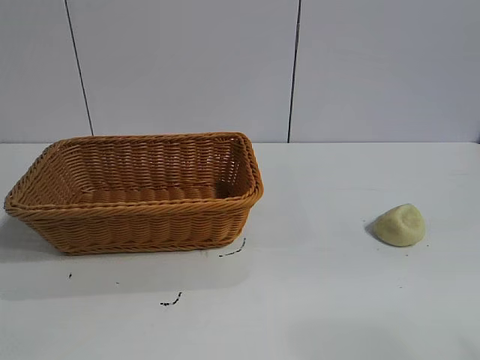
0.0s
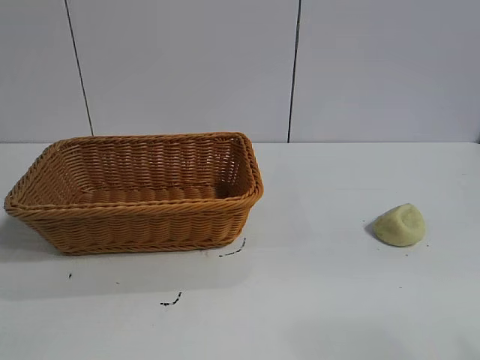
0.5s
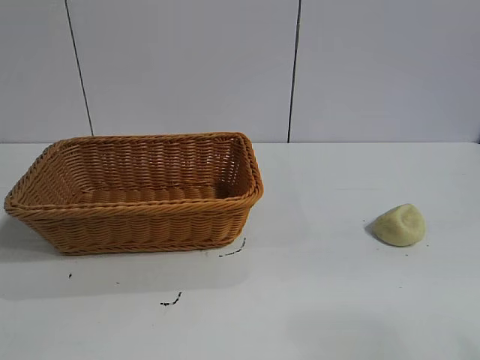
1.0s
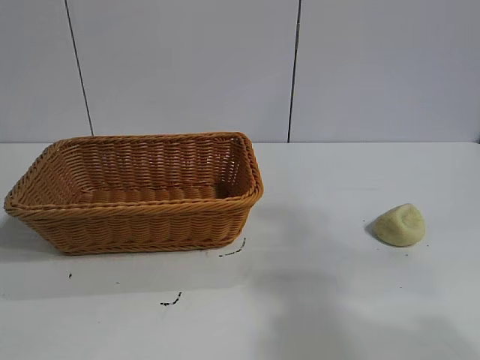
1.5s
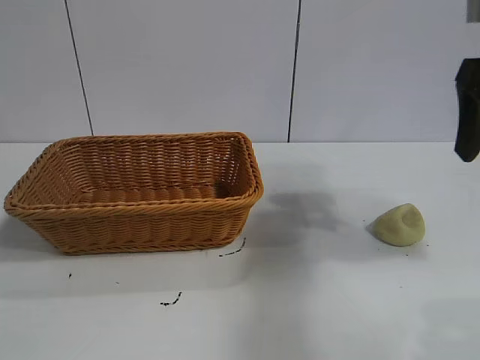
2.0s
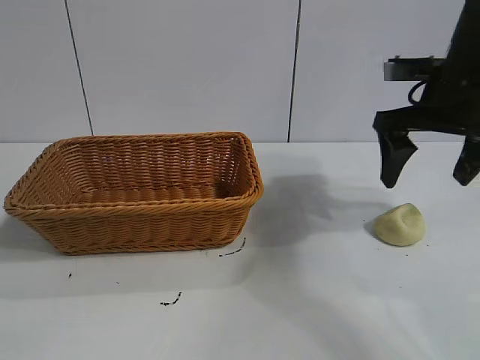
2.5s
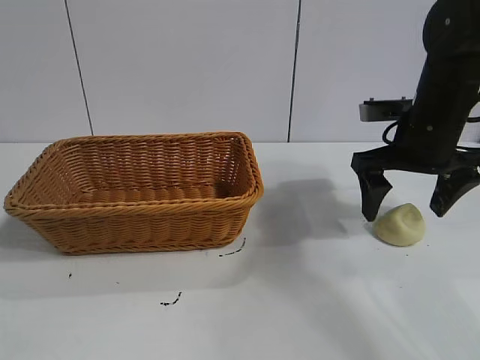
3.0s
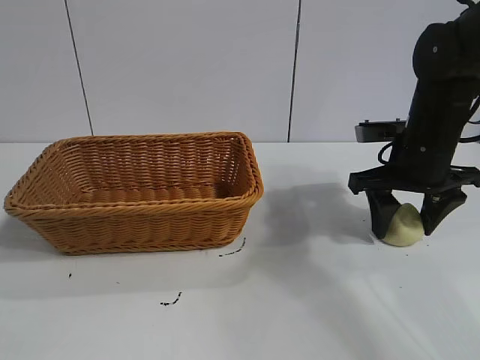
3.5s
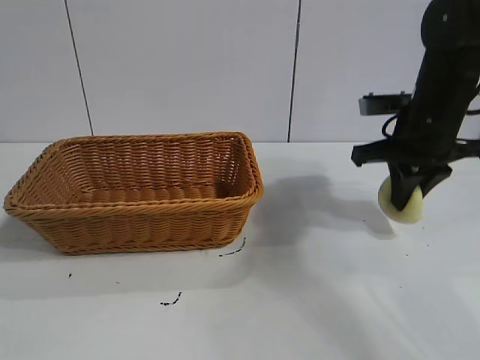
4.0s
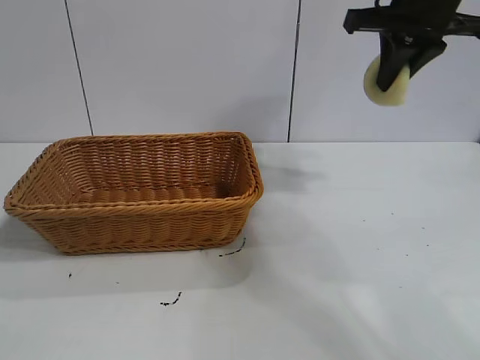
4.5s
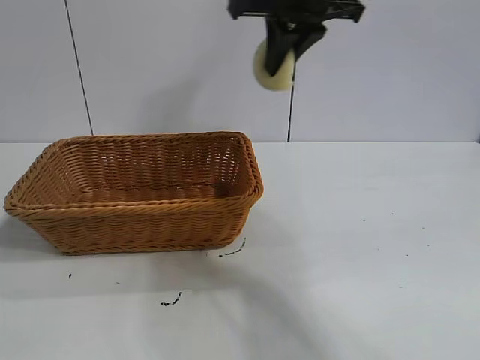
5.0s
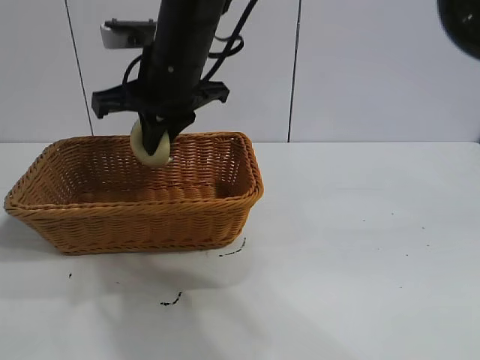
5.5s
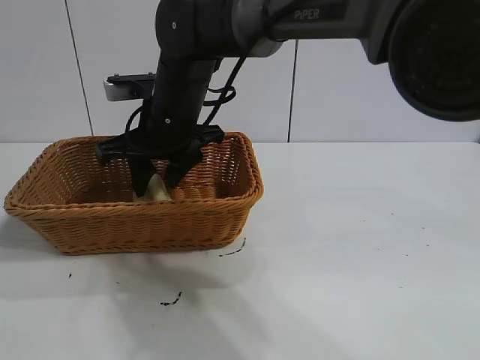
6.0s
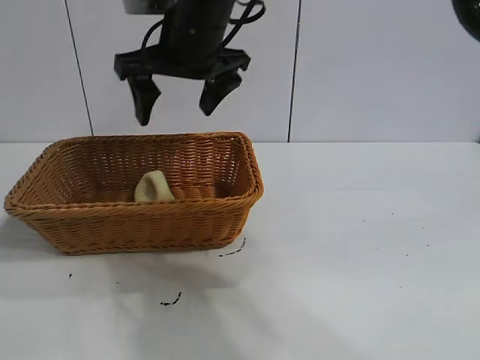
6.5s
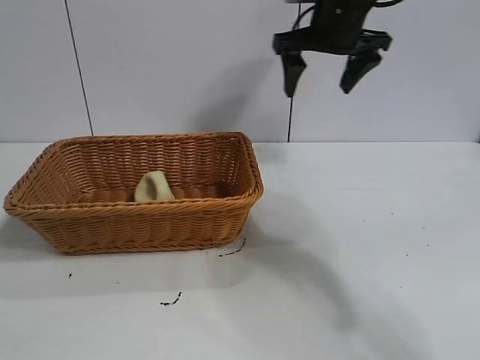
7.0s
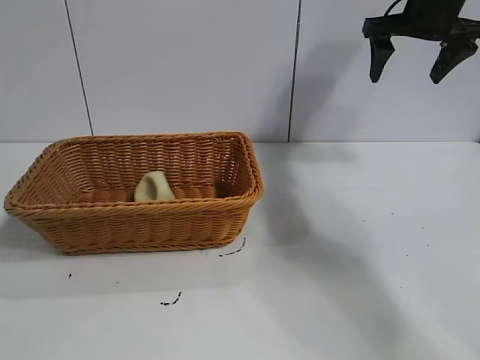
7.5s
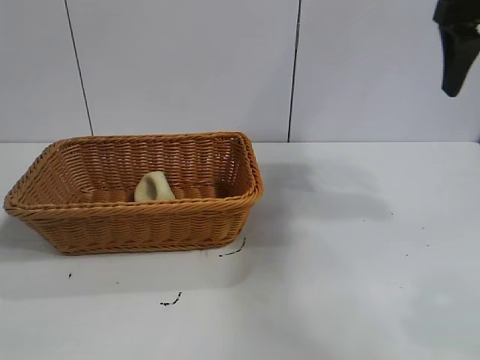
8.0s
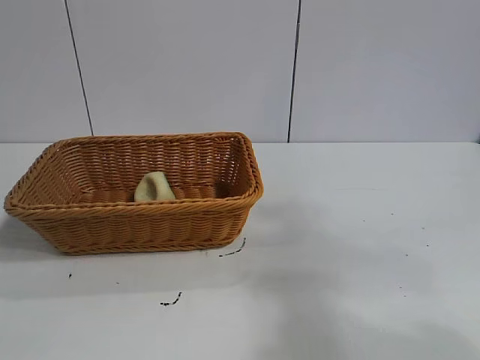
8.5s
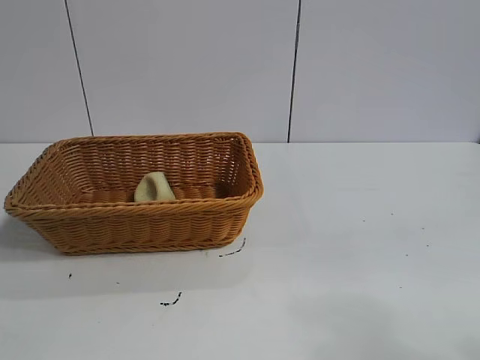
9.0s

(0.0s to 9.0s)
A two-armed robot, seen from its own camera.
Task of the whole recording: pick up the egg yolk pastry and put it into the basket.
Step, 1.0s - 3.5s: Grasp egg yolk pastry with right gripper.
Step, 4.0s - 6.0s: Place the egg yolk pastry in the basket with right gripper.

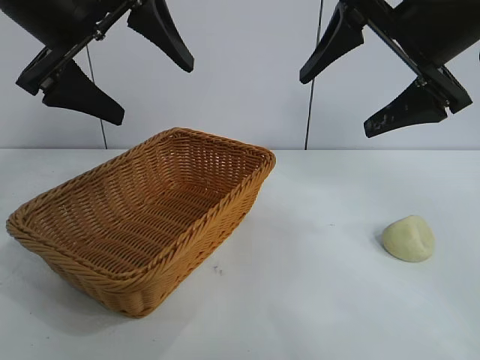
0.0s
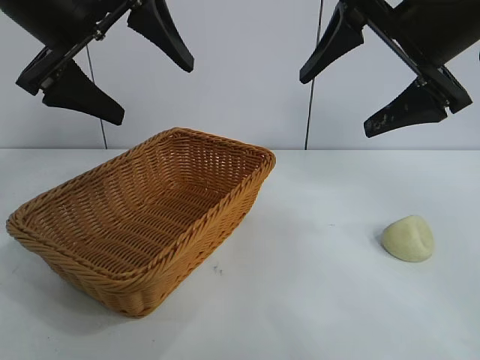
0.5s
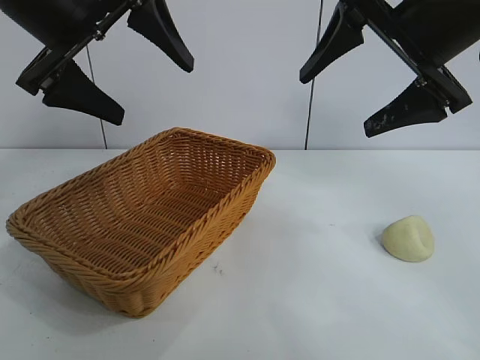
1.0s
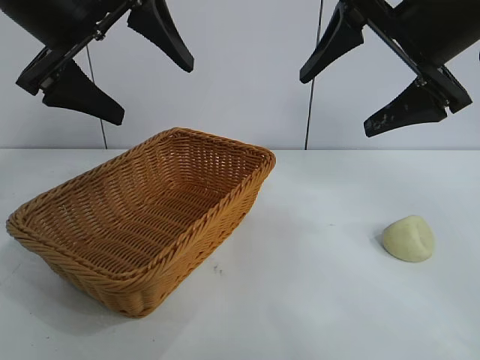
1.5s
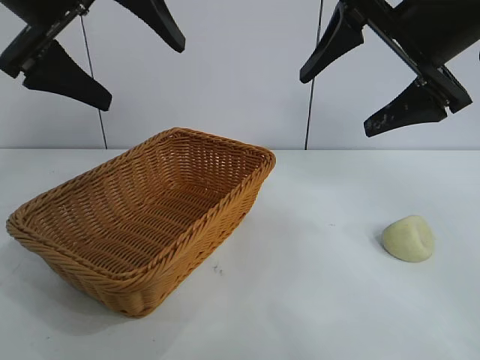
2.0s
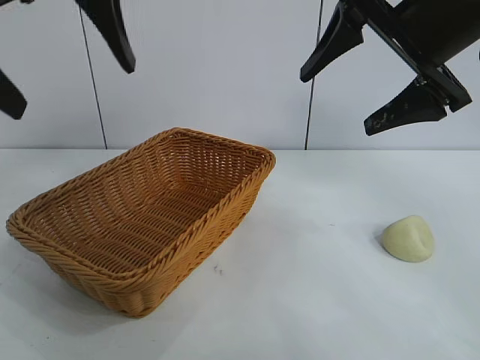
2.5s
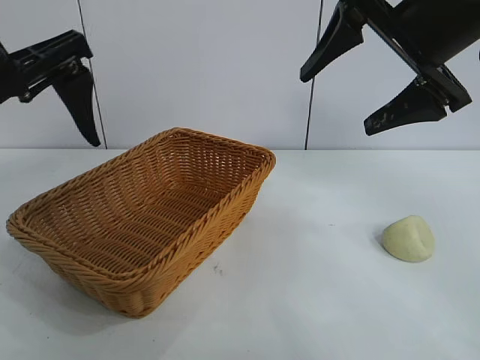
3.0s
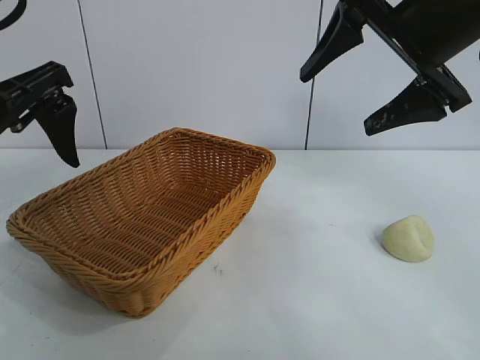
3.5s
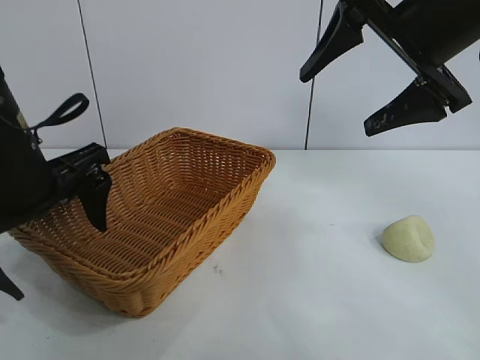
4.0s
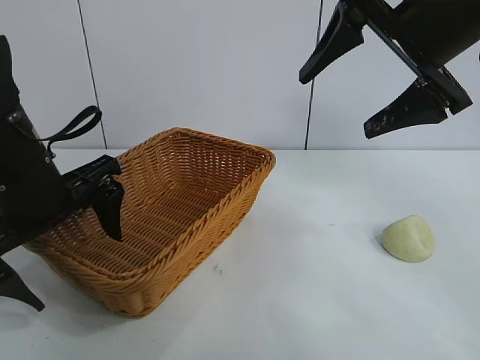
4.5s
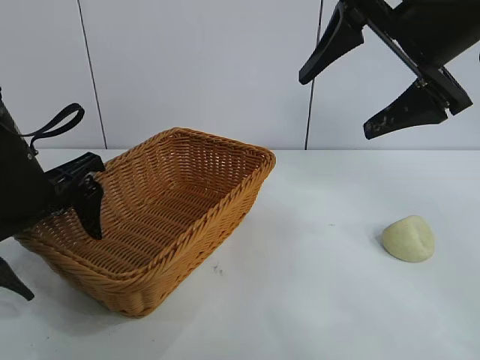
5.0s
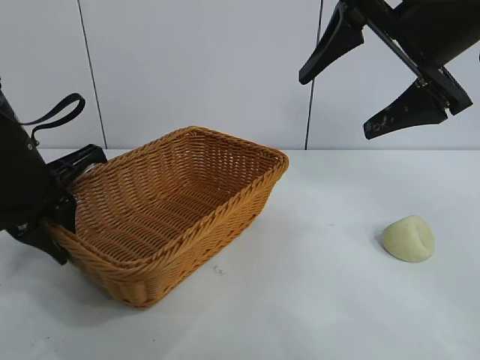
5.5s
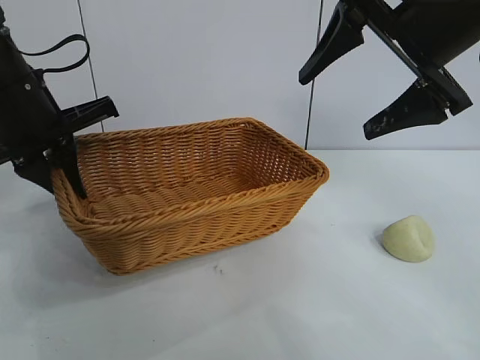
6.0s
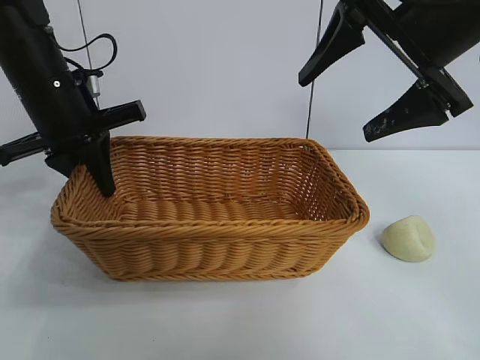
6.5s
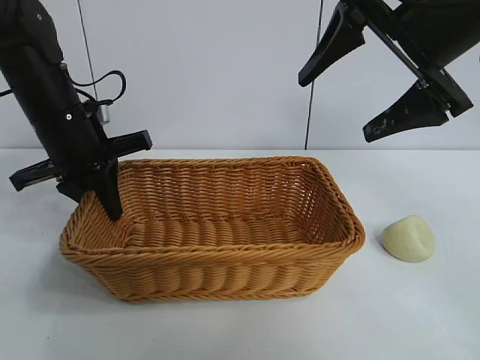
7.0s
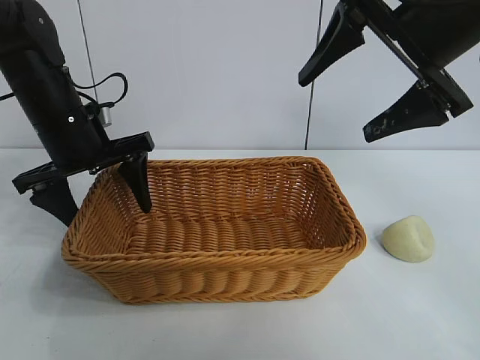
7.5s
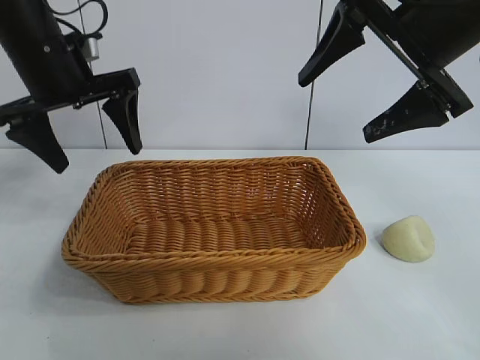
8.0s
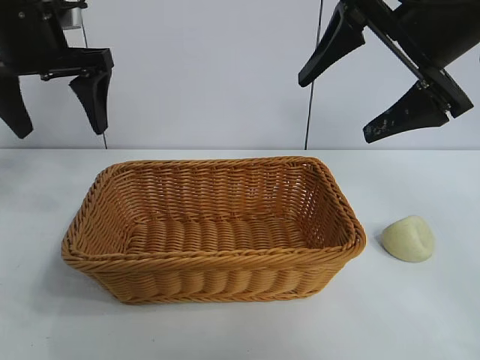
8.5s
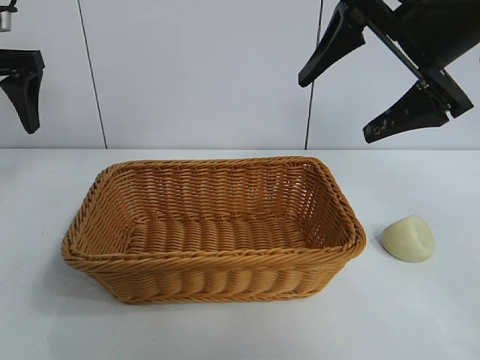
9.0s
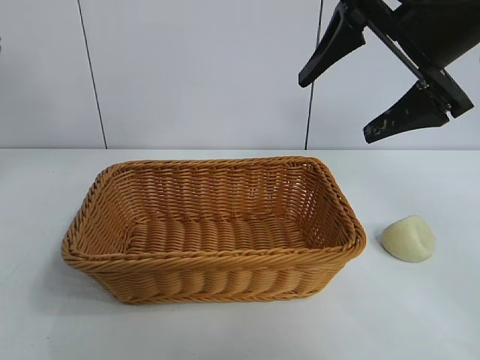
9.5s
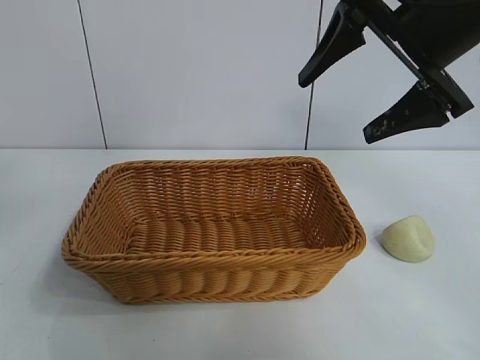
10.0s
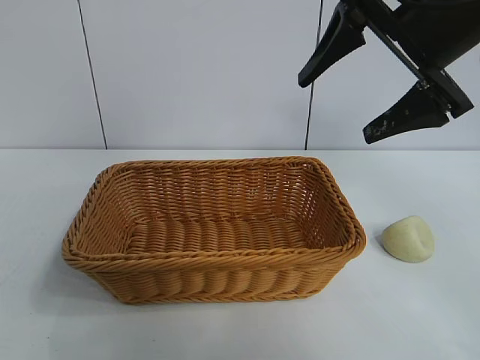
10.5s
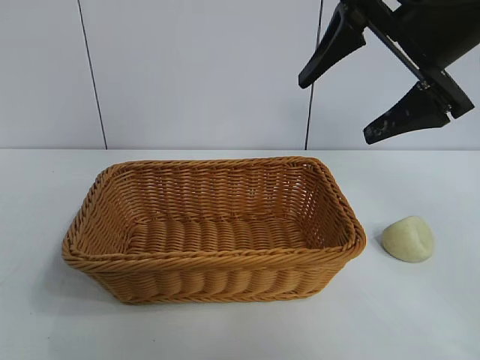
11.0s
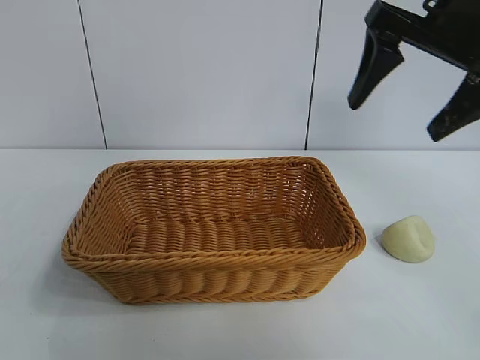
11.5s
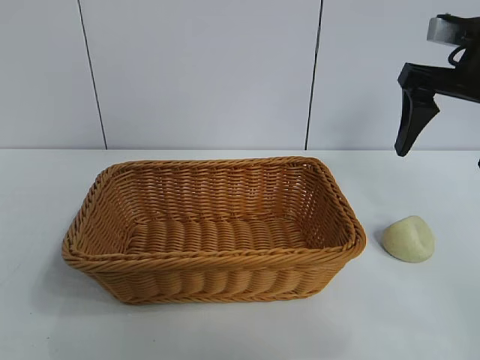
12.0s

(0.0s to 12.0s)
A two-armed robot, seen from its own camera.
Task of the whole recording: pick up the egg yolk pastry and put it into the basket.
Step, 2.0s - 5.0s: Grasp the basket with left gripper.
Step, 5.5s - 7.5s: Place the basket in the center of view with left gripper.

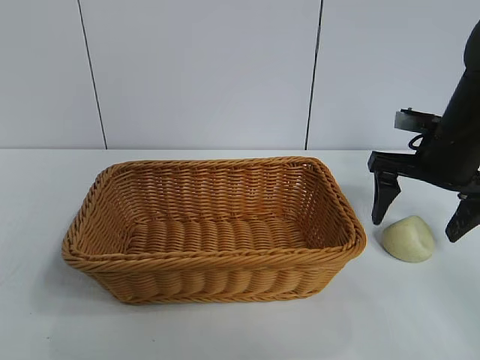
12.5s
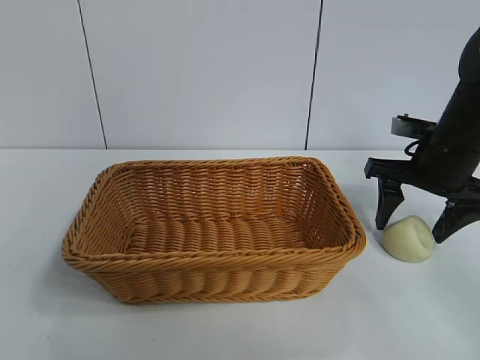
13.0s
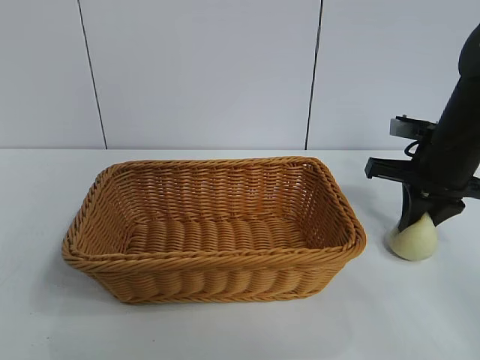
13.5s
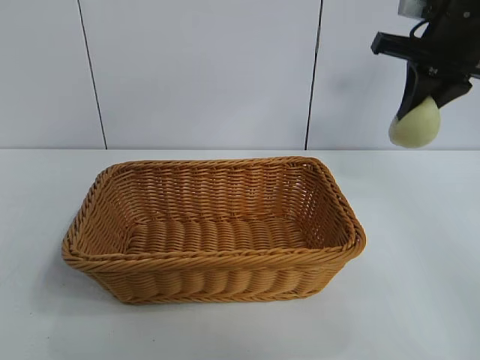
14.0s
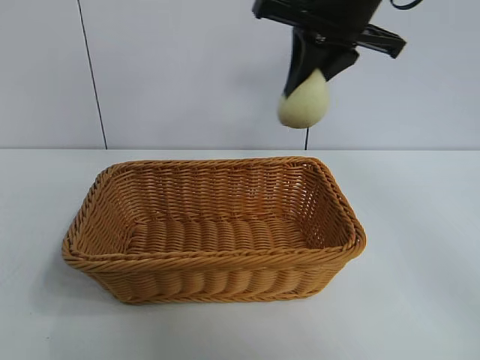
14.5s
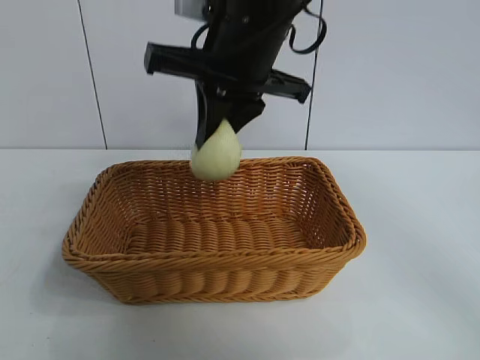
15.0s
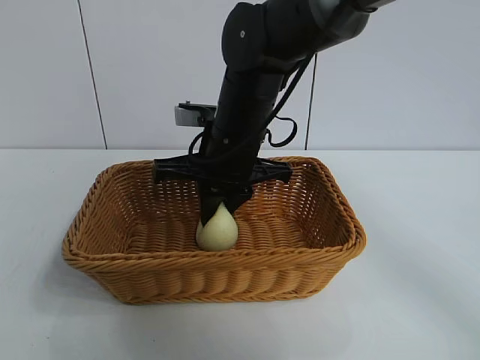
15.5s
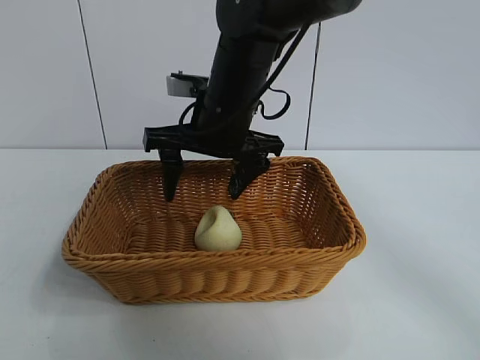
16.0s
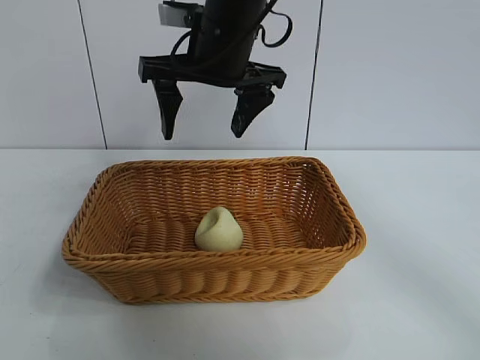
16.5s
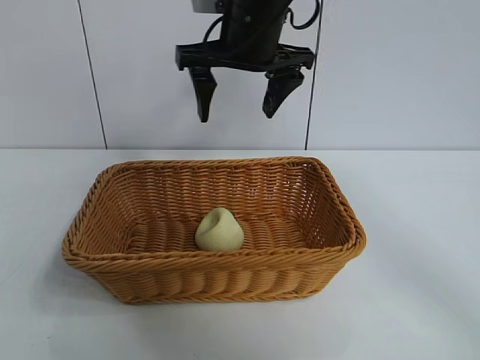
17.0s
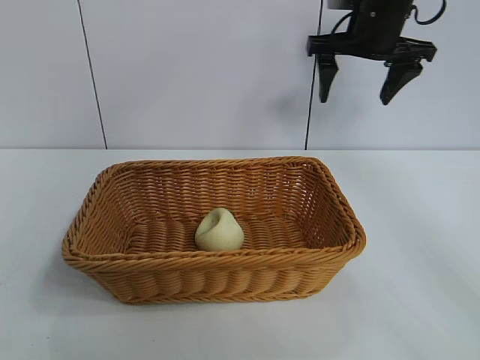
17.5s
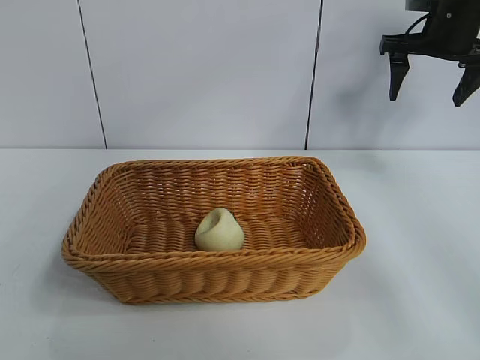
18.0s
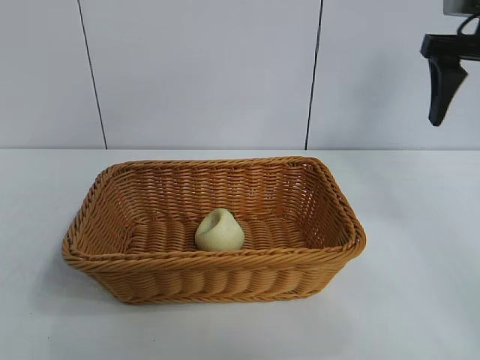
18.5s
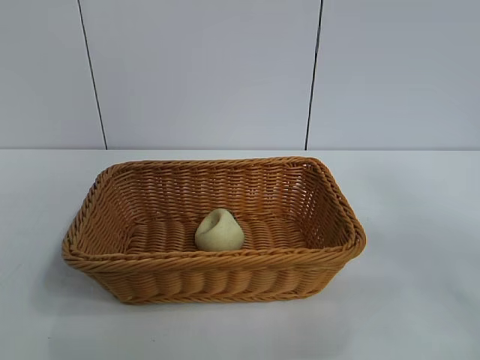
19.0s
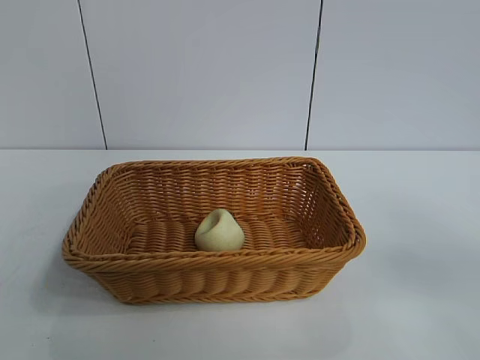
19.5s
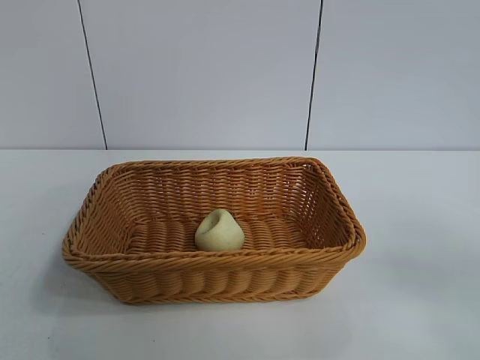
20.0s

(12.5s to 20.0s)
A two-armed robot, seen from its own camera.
Task of the whole recording: pick up the egg yolk pastry and put it into the basket.
Step, 13.5s - 15.5s: Place the egg yolk pastry in the basket with right gripper.
